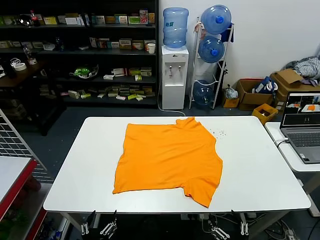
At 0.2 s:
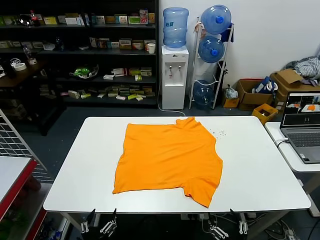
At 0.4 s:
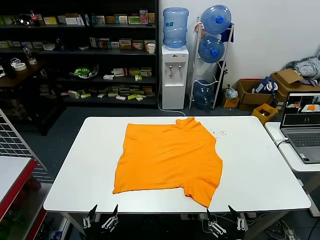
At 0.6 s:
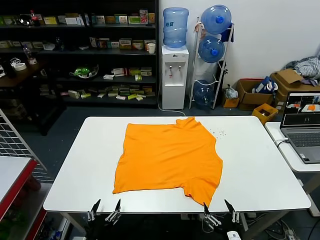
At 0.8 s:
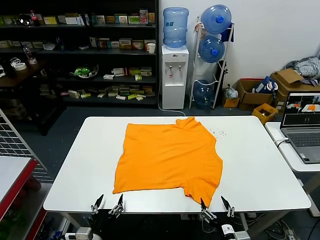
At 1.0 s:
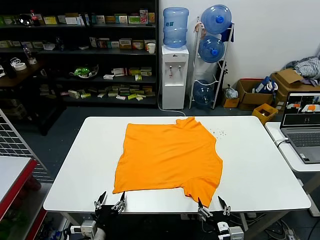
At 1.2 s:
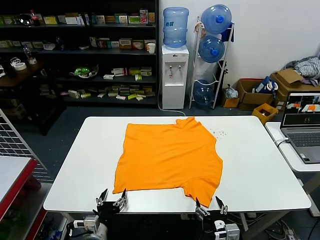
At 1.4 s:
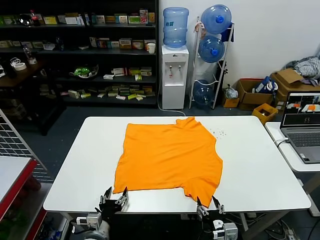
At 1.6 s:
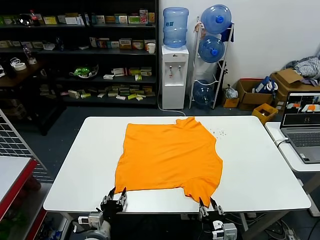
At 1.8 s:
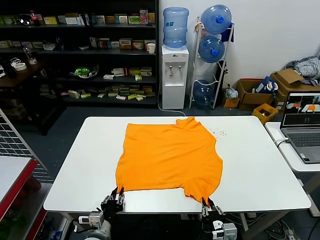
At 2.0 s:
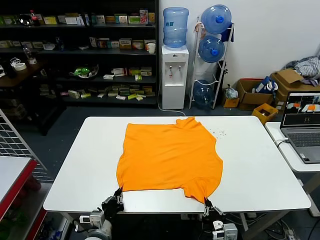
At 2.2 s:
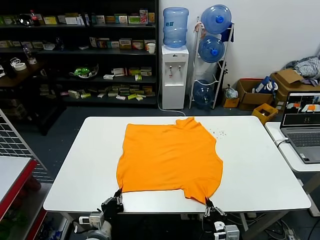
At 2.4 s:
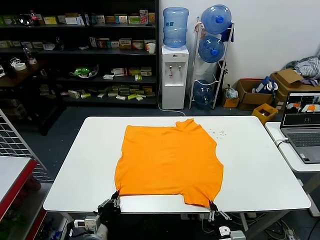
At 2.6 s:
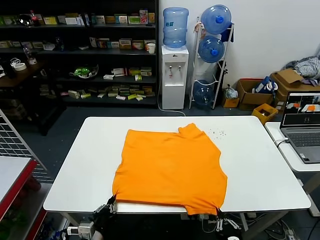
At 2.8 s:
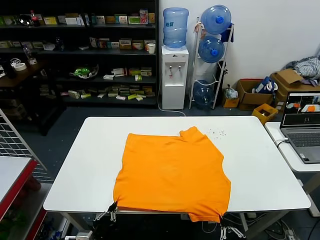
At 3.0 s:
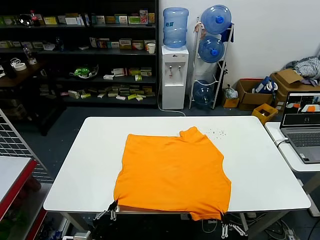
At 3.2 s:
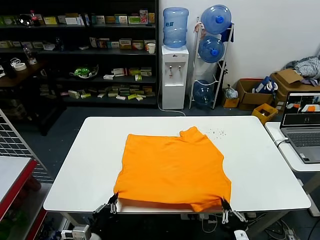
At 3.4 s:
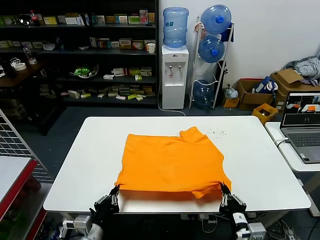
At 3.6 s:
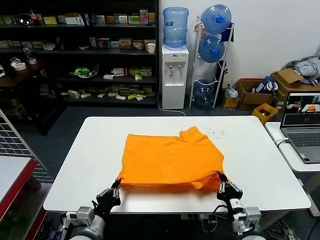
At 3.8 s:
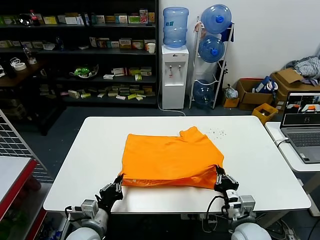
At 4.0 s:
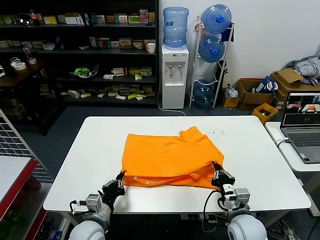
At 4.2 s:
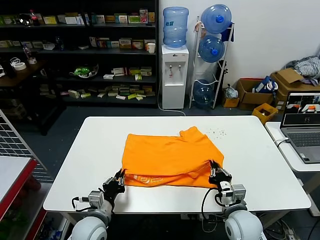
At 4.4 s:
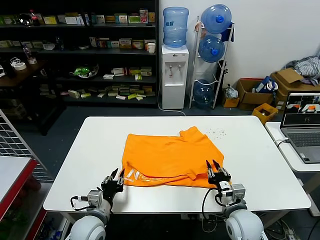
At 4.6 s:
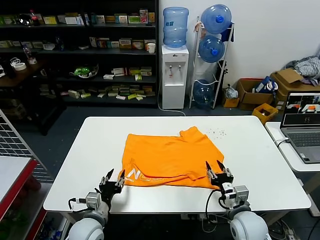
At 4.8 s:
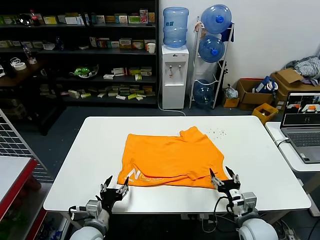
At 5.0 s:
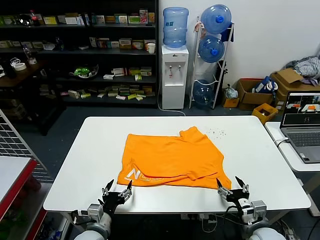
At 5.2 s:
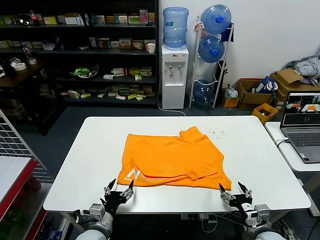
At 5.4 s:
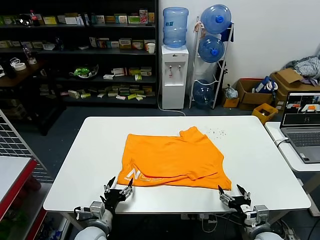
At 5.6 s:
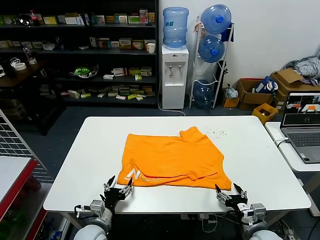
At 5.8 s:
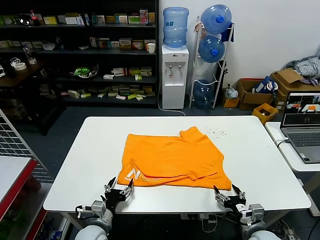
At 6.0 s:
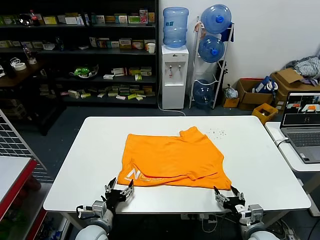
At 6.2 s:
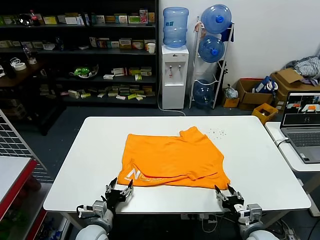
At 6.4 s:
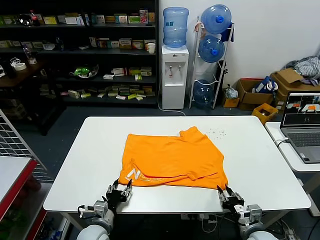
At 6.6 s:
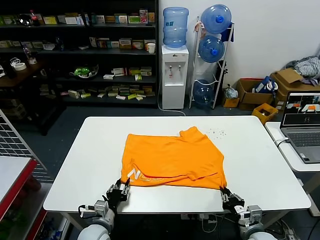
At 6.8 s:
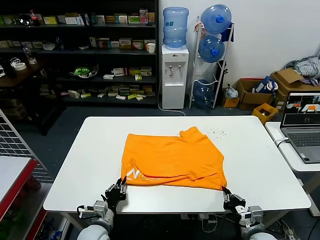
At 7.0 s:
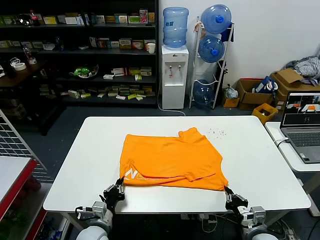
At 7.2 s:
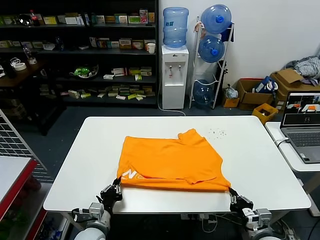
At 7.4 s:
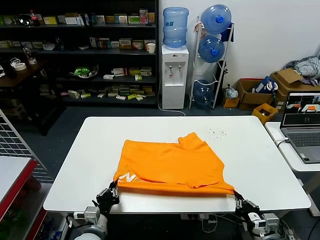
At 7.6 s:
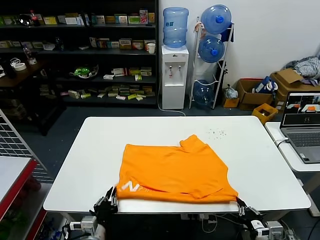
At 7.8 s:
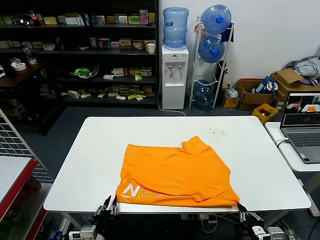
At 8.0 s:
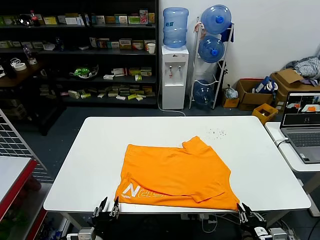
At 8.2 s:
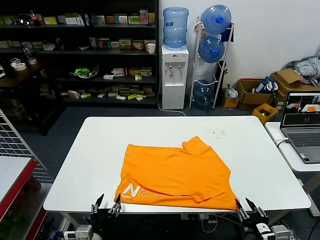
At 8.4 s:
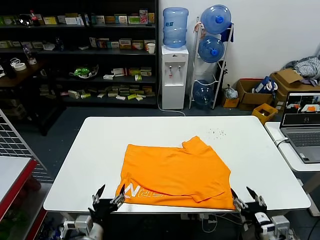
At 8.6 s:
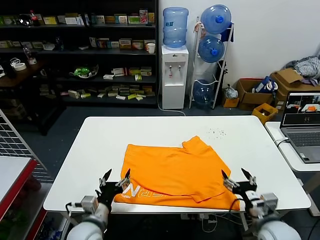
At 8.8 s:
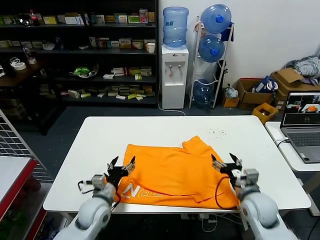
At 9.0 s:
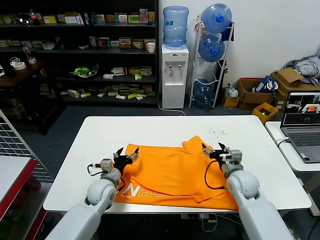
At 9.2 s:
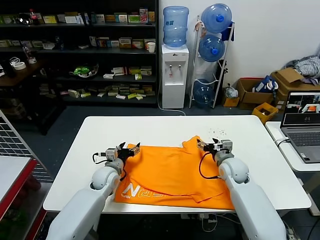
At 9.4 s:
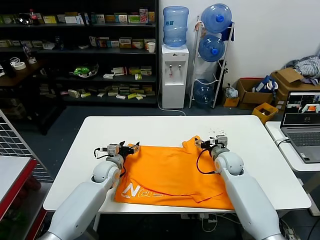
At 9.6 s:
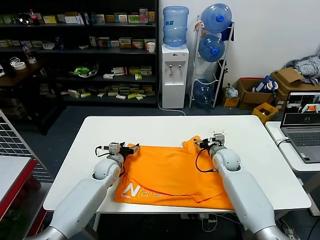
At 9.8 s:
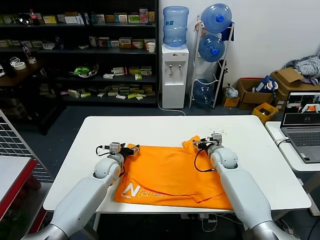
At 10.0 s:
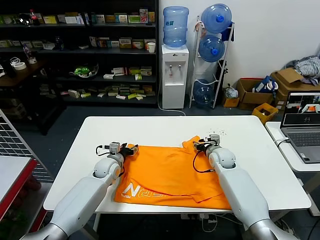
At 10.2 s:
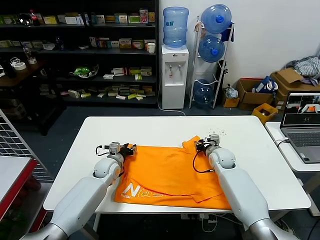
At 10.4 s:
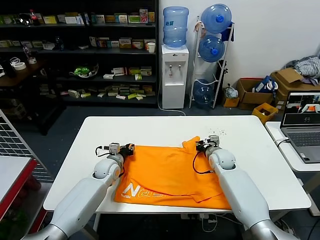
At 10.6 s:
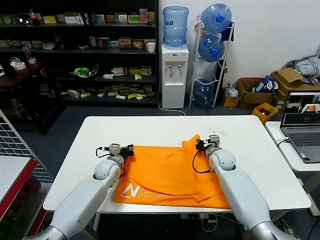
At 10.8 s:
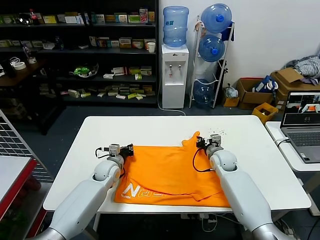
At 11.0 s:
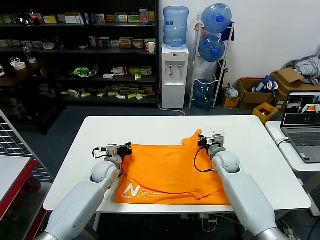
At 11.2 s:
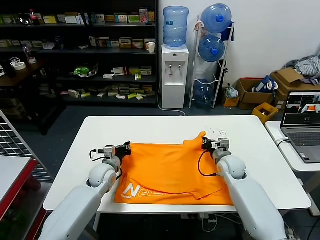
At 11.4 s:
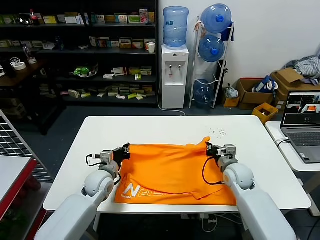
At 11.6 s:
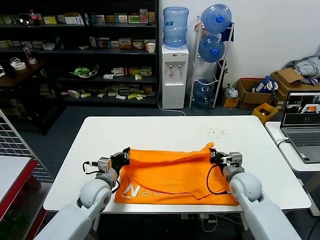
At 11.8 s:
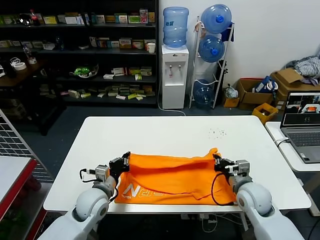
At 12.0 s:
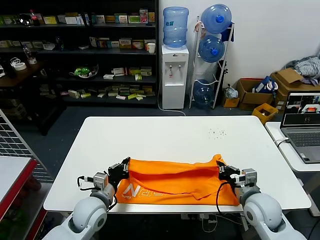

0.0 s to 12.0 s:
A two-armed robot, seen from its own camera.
Task of the whole recording: fold and organize the clothes.
Step, 0.0 to 2.0 s: use both grippers simultaneously to clamp the lower edge of the clothing fabric.
Step, 2.2 to 4.4 s: use both grippers to drag the lower edge of the fabric forward and fold it over the upper edge.
Step, 4.6 to 7.8 s: Drag the clothes downward with both gripper.
Step, 8.0 to 10.4 s: use both grippers simultaneously to clamp the upper edge of the clothing fabric.
1.6 to 3.0 s: Both grippers move backward and upward, about 10 cm. The left gripper closes up, while the right gripper closes.
3.0 to 4.4 s: The grippers both shift forward by approximately 15 cm. The right gripper opens. The left gripper opens up.
4.4 to 6.0 s: The right gripper goes some 5 cm to the right, and opens its fingers. Meanwhile the left gripper heads downward, covering approximately 5 cm, and opens its fingers.
6.0 to 7.6 s: The grippers both shift backward by approximately 5 cm. The right gripper closes up. Meanwhile the left gripper closes.
7.6 to 9.0 s: Both grippers move forward, some 20 cm. The right gripper opens its fingers. Meanwhile the left gripper opens.
9.0 to 10.4 s: Both grippers travel together forward, approximately 10 cm. The right gripper closes, while the left gripper closes its fingers.
10.4 to 12.0 s: Both grippers move backward, about 20 cm.

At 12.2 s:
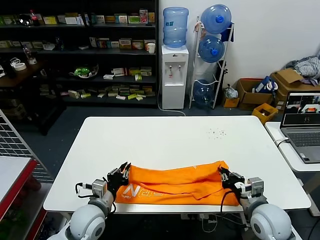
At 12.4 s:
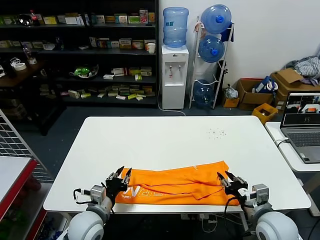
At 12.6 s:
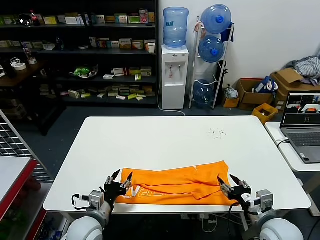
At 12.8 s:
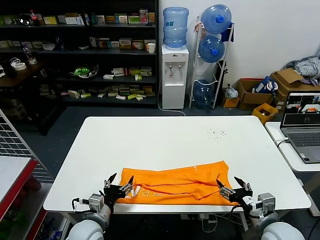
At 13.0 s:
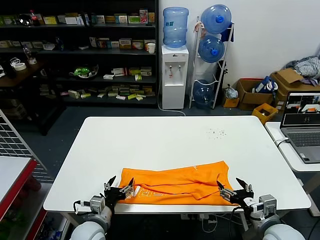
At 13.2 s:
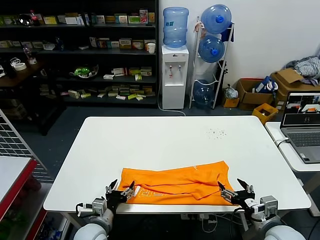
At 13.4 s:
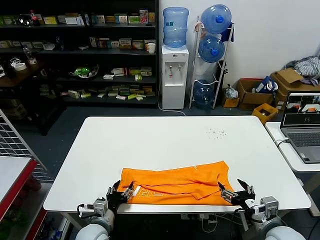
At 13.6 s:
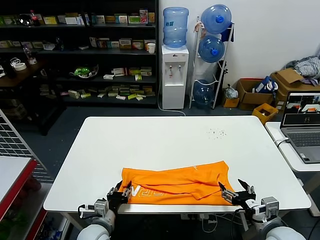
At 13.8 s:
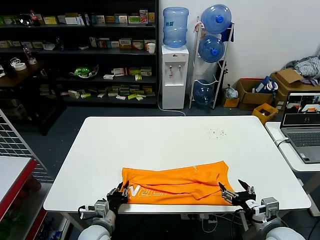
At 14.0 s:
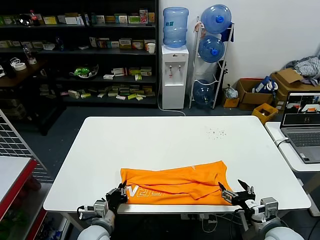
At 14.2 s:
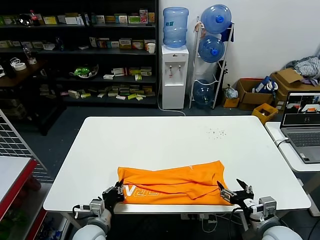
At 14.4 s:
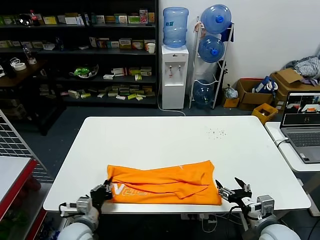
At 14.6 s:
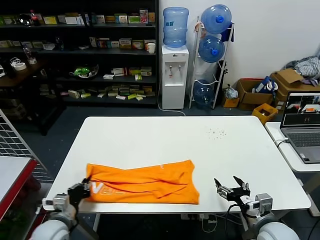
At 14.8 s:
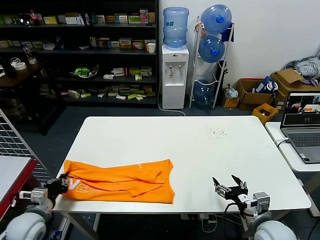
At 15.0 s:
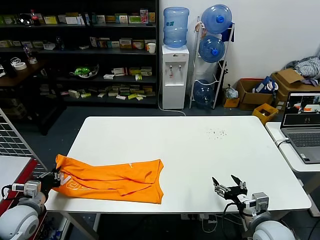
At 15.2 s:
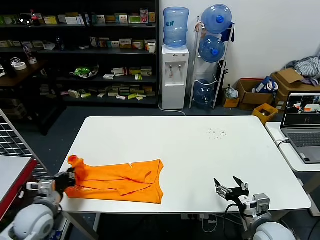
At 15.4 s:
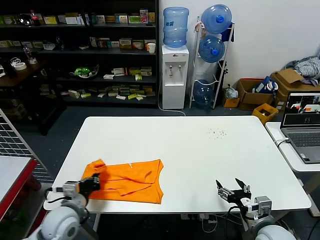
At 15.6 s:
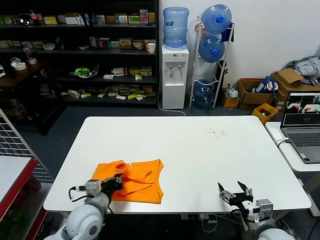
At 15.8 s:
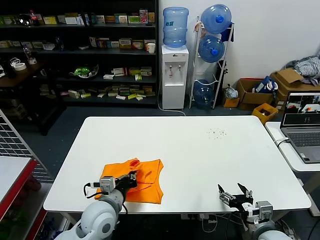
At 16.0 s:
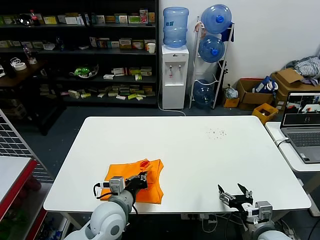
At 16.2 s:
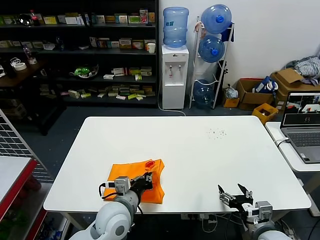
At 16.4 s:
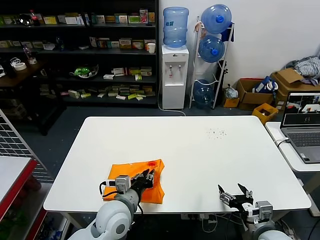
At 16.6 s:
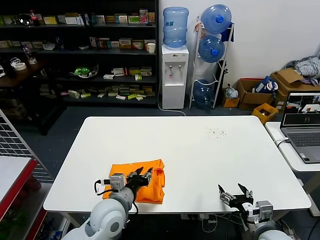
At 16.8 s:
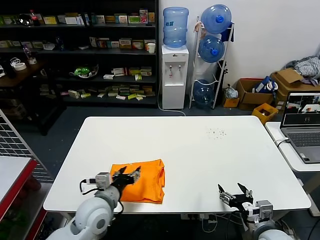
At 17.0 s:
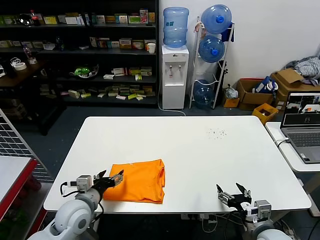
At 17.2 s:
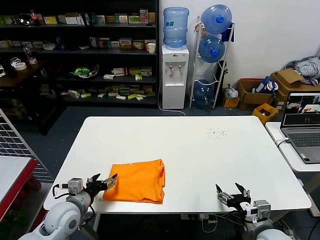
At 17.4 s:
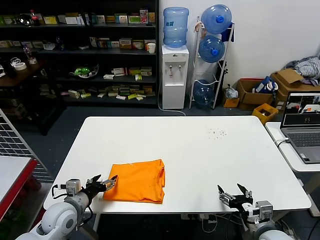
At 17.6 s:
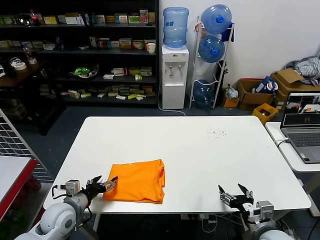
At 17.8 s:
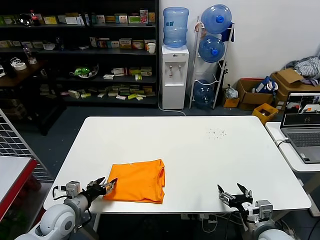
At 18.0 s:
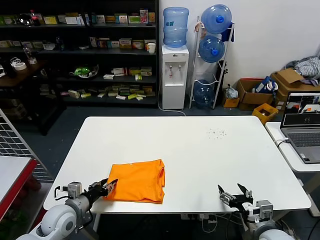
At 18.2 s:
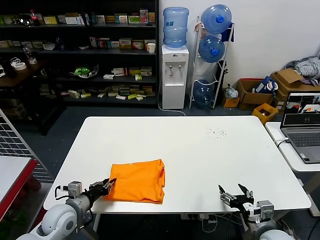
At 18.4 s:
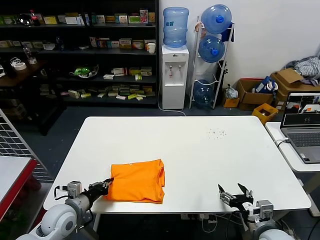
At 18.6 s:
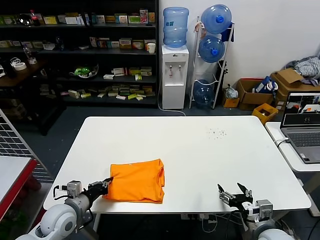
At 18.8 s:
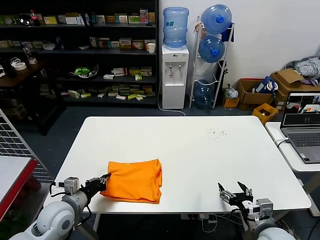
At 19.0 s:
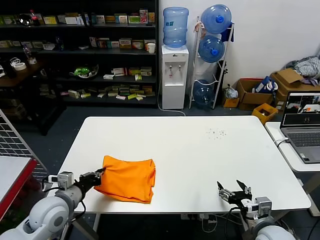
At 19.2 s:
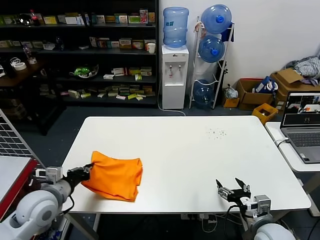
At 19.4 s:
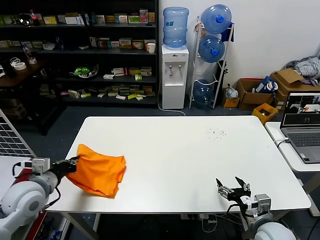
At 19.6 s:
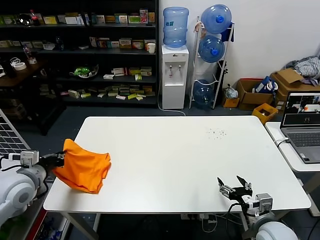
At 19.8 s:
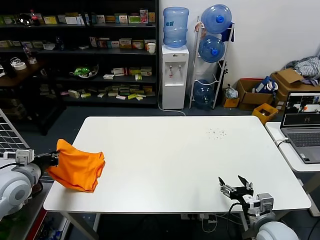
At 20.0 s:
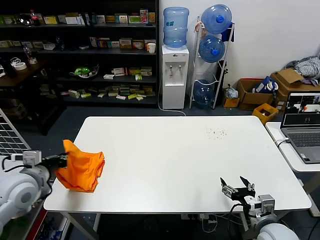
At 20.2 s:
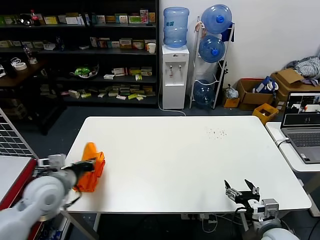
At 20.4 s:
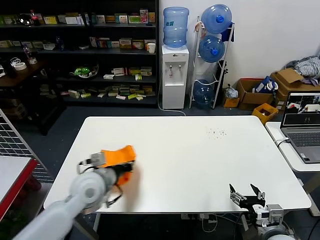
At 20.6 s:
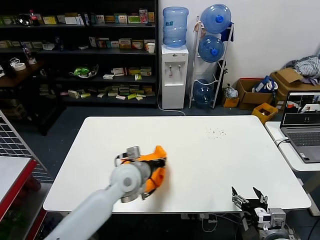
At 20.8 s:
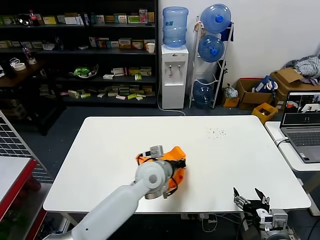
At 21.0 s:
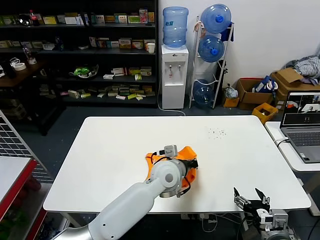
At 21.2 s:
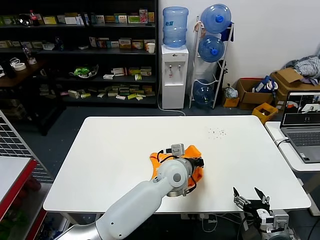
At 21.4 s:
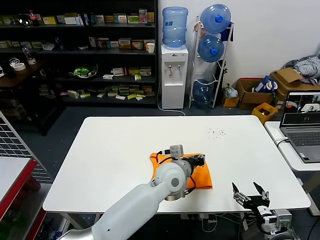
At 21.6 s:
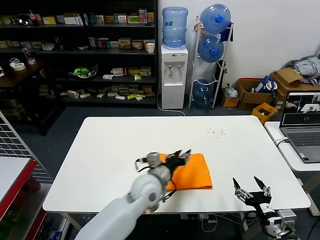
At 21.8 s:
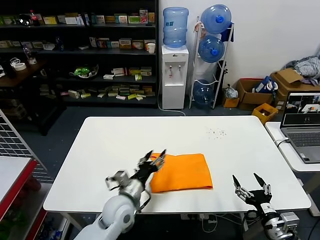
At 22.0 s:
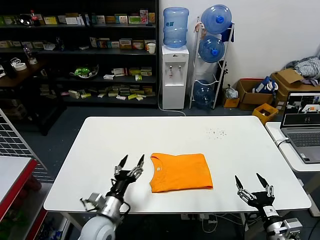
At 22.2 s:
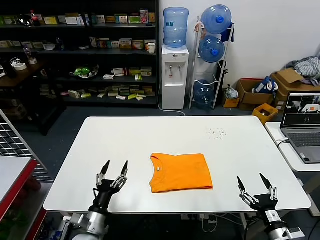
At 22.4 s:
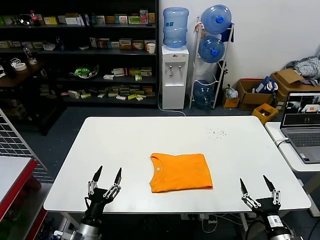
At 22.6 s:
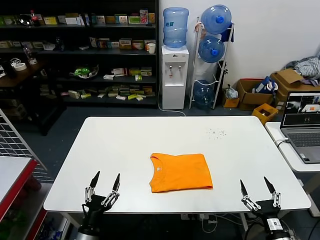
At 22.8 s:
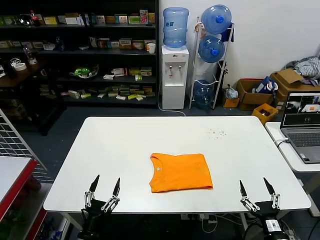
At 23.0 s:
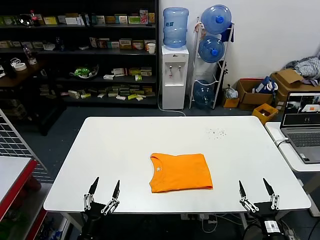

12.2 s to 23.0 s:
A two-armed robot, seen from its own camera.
Task of the whole recording: fold and organize the clothes.
Step, 12.4 to 13.8 s: use the left gripper to clamp the left edge of the fabric.
Step, 14.2 to 16.4 s: use the left gripper to drag the left edge of the fabric to the left and folds it over the right edge.
Step, 16.6 to 21.2 s: Flip the folded clothes over with left gripper.
12.2 to 13.8 s: The left gripper goes some 10 cm downward, and opens, then closes once more. Meanwhile the right gripper heads backward, covering some 5 cm, and opens.
13.8 to 15.2 s: The left gripper travels to the left and upward by about 20 cm.
15.2 to 16.8 s: The left gripper is displaced to the right by about 20 cm, and opens up.
16.8 to 18.4 s: The left gripper moves to the left, approximately 15 cm, and closes up.
18.4 to 20.0 s: The left gripper heads upward and to the left, covering about 15 cm.
20.0 to 21.4 s: The left gripper travels to the right by about 40 cm.
21.4 to 23.0 s: The left gripper shifts roughly 40 cm to the left, backward and downward, and opens, while the right gripper is displaced downward by about 5 cm.
